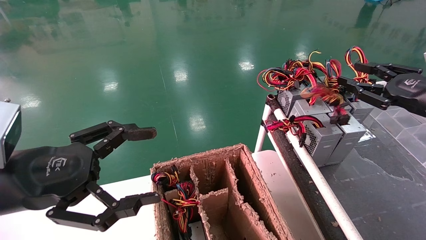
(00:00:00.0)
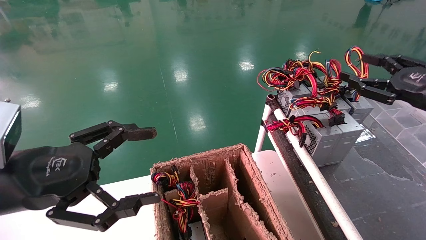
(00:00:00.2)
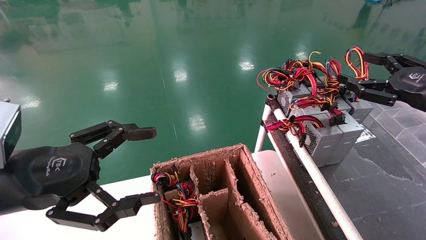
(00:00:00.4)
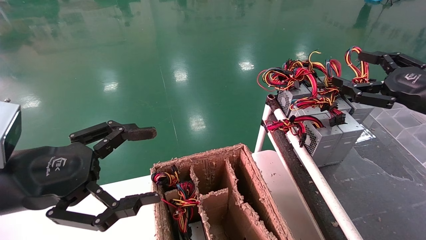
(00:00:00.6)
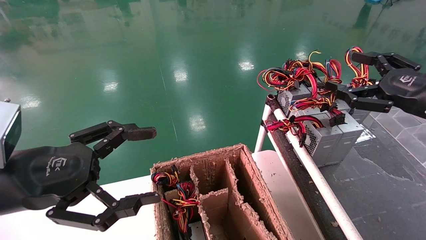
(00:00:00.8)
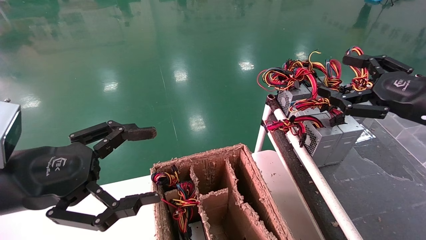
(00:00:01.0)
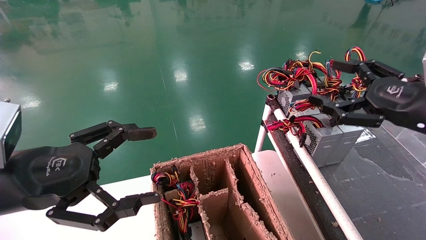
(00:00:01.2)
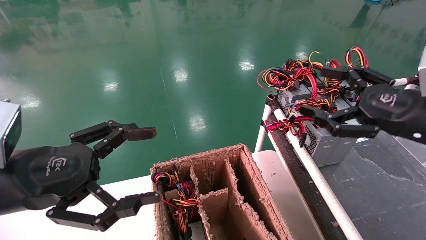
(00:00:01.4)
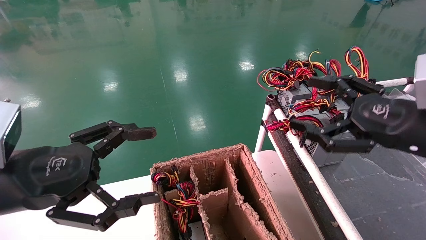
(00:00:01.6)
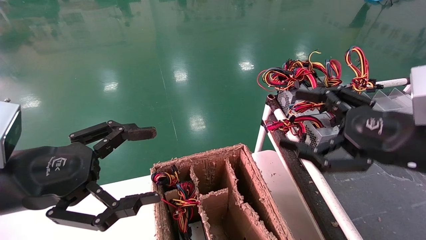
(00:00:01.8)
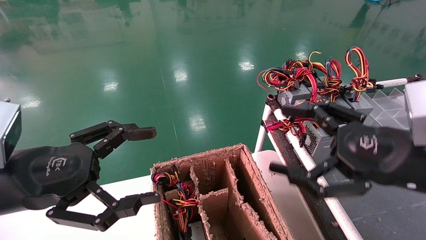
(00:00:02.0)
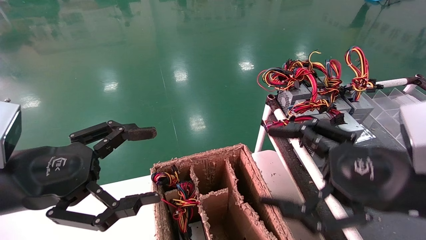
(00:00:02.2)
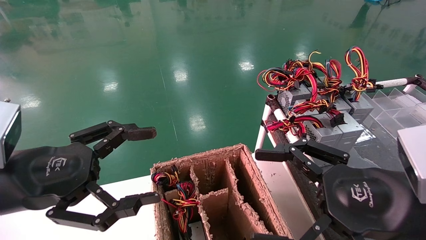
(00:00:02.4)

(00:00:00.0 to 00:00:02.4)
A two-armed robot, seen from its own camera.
00:00:00.0 - 00:00:01.2: The right gripper goes roughly 5 cm to the left, and opens.
00:00:01.2 - 00:00:02.4: The right gripper travels to the left and backward by roughly 15 cm.

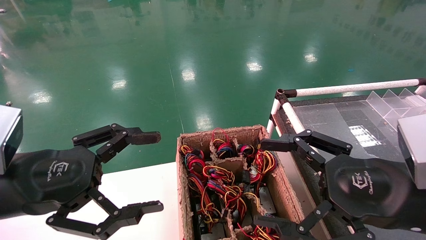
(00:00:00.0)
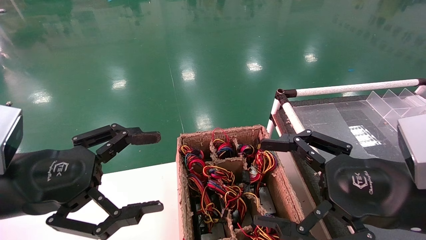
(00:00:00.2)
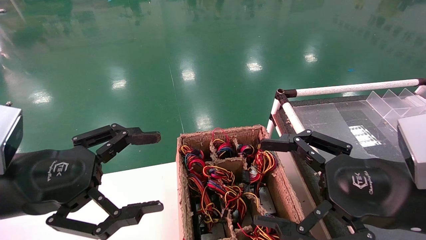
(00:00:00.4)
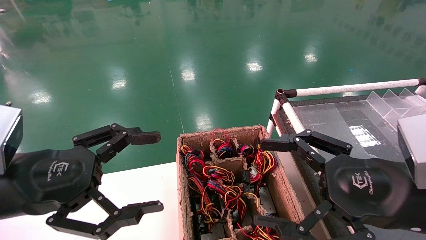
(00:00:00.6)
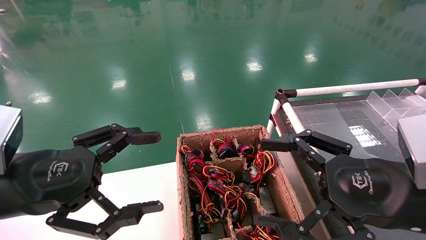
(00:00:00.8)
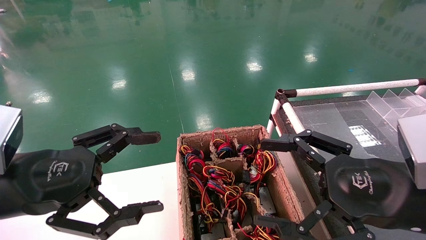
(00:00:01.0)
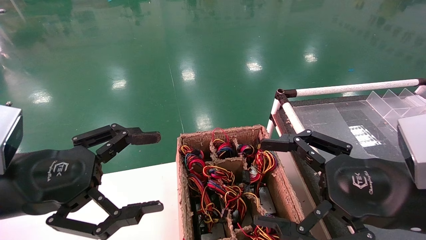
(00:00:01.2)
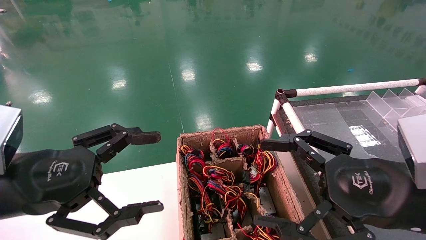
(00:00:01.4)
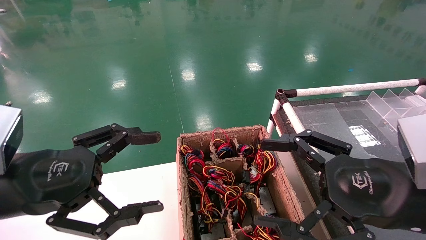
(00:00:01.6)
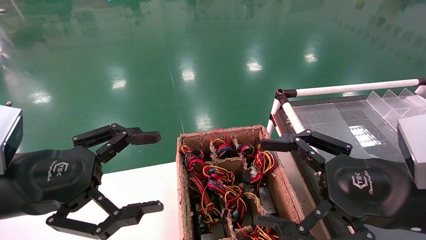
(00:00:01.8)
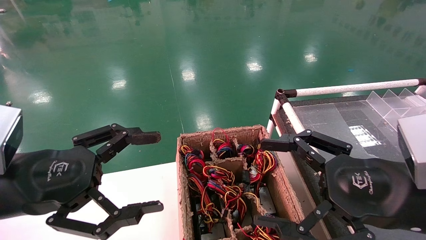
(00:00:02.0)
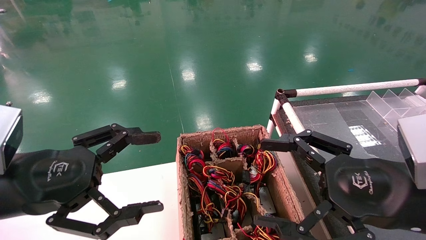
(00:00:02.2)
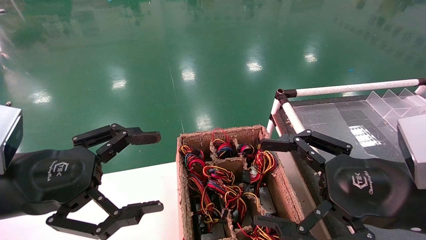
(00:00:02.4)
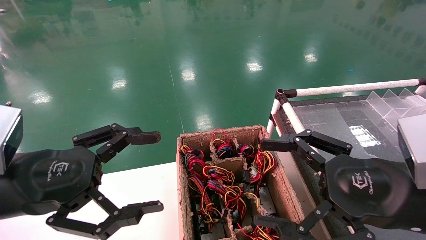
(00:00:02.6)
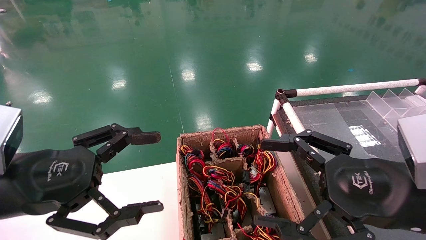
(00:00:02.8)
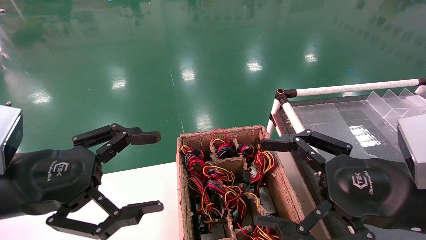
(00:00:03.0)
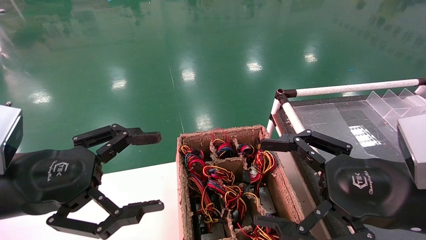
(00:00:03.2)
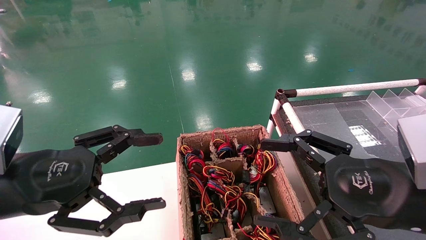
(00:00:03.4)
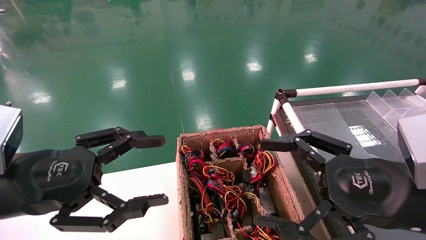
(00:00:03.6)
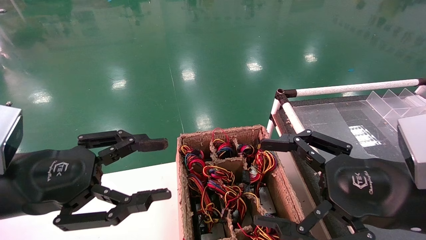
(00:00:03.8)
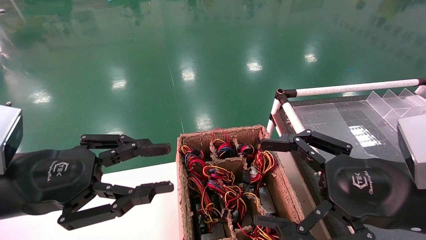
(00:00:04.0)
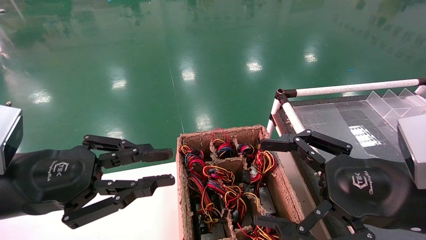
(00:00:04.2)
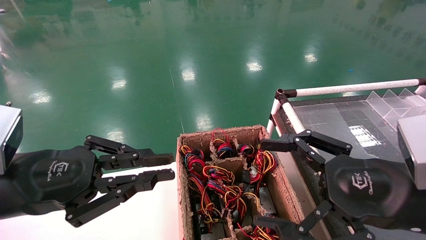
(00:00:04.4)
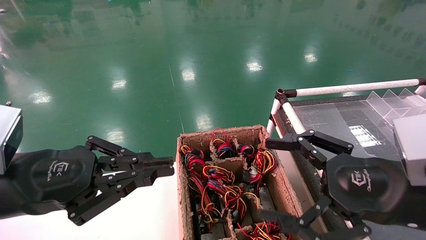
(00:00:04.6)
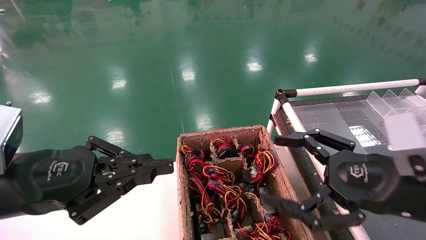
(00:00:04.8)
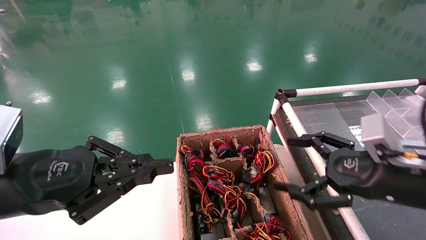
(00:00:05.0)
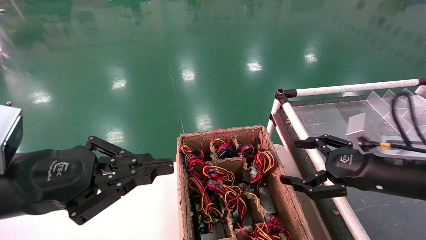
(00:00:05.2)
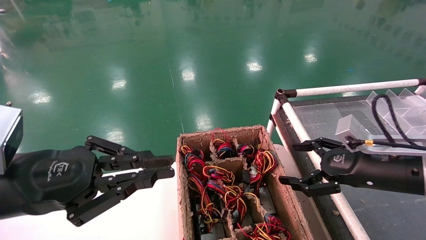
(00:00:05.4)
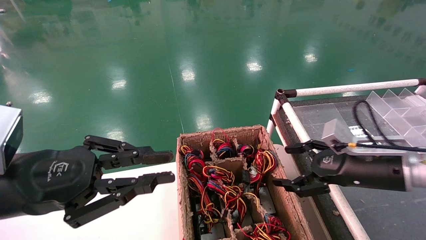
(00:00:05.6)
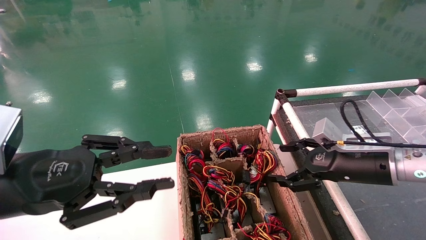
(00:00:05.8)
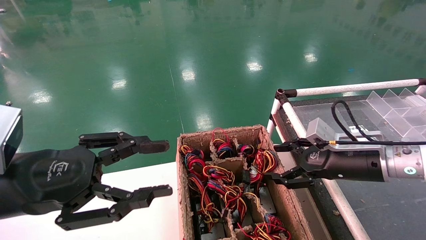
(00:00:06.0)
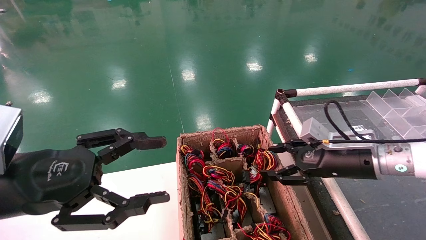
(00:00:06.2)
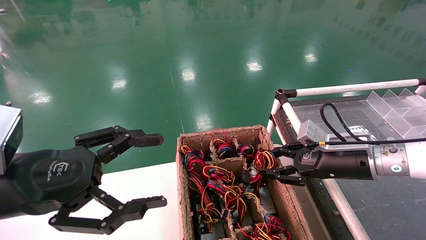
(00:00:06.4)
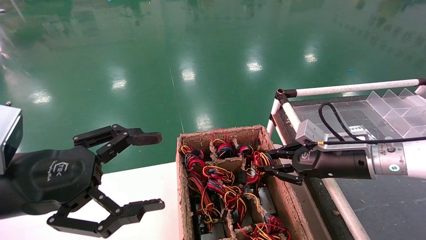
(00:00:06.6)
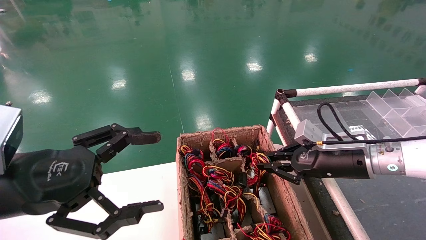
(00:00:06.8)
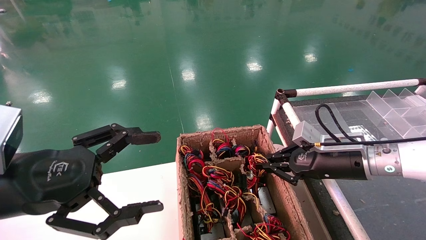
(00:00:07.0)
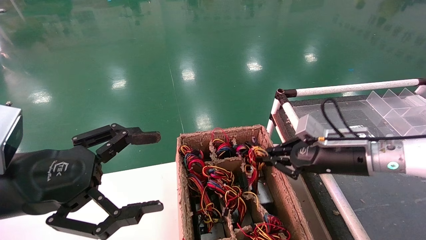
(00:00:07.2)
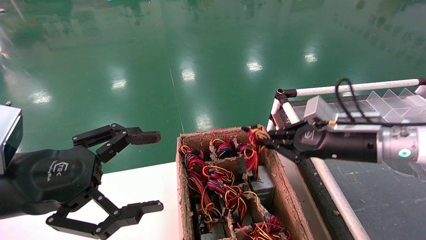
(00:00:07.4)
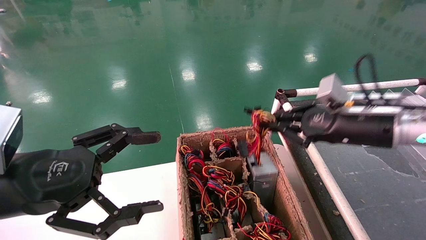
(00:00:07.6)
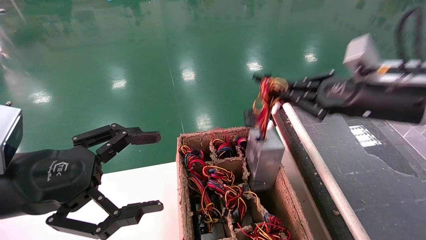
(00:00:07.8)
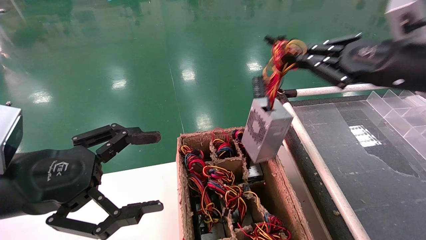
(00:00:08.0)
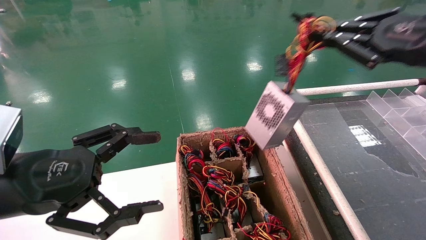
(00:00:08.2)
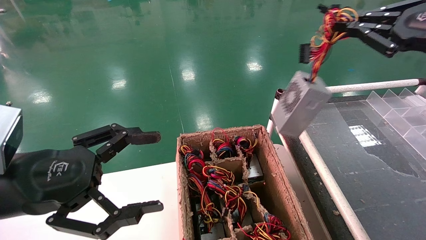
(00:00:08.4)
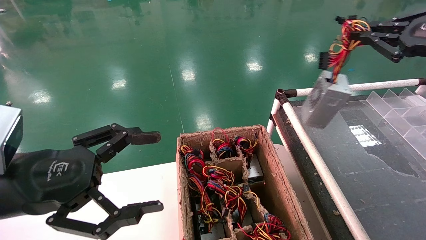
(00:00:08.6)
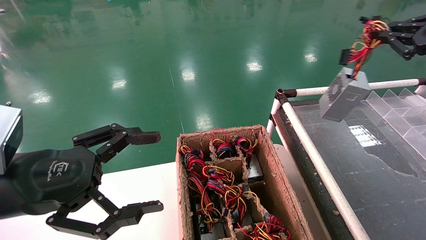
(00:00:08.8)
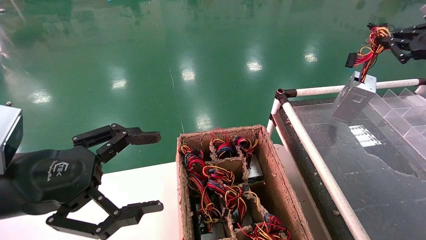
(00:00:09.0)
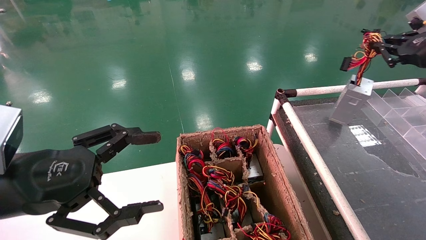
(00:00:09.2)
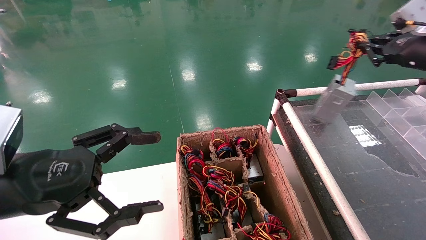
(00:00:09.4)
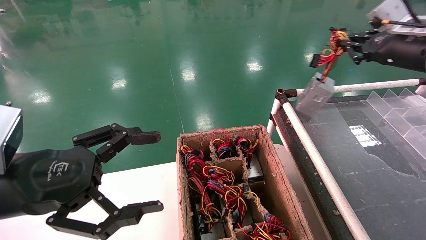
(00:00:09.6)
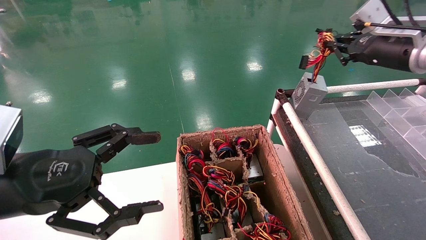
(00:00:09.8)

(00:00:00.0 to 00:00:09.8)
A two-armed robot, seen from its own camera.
Step, 00:00:04.8 - 00:00:07.2: Grab and lift the power supply from the large box.
00:00:00.0 - 00:00:02.8: Neither gripper changes place.
00:00:02.8 - 00:00:04.2: The left gripper closes up.
00:00:04.2 - 00:00:05.6: The right gripper heads forward, covering some 15 cm.
00:00:05.6 - 00:00:07.0: The right gripper ends up some 5 cm from where it was, and closes its fingers, while the left gripper opens its fingers.
00:00:07.0 - 00:00:08.4: The right gripper is displaced upward and to the right by about 25 cm.
00:00:08.4 - 00:00:09.8: The right gripper heads forward, covering about 10 cm.

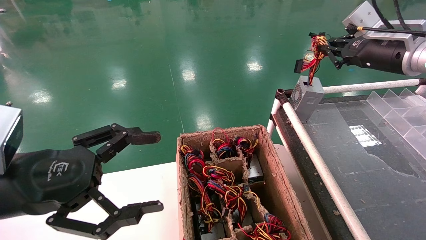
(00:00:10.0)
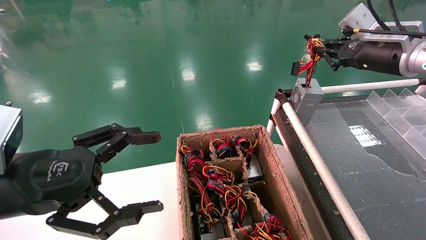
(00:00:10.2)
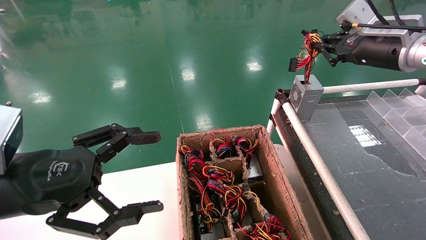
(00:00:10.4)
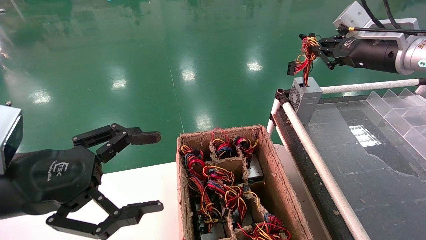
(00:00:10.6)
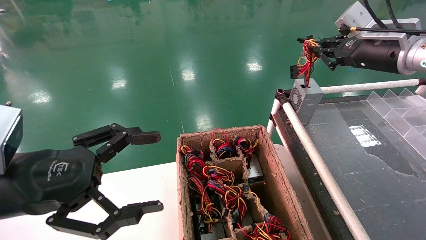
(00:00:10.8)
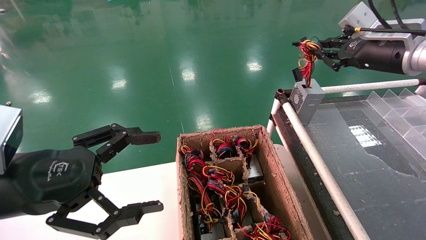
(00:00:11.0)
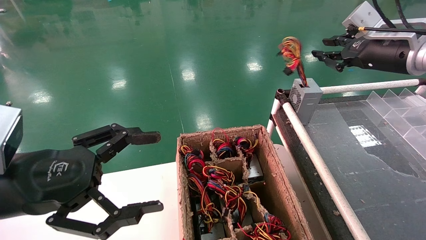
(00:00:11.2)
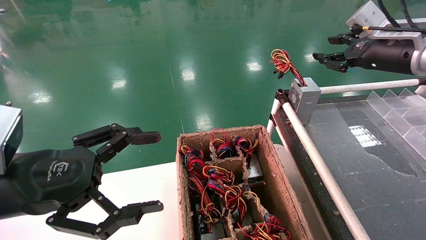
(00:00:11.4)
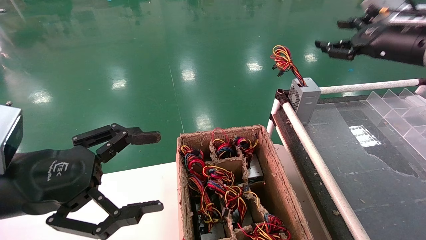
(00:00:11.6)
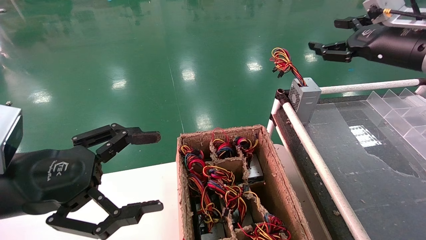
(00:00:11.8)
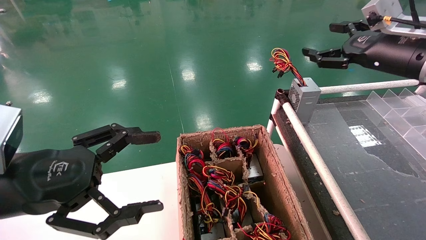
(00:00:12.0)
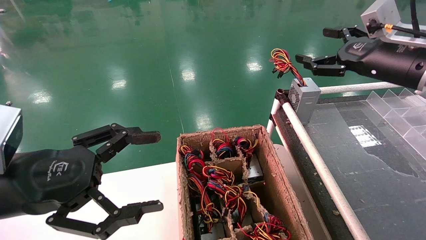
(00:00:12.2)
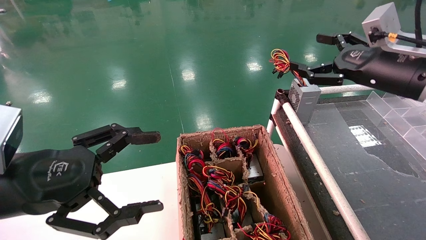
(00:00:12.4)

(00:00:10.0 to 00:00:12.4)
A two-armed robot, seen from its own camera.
00:00:10.0 - 00:00:11.2: The two grippers keep their place.
00:00:11.2 - 00:00:12.4: The right gripper moves some 5 cm, and opens.
